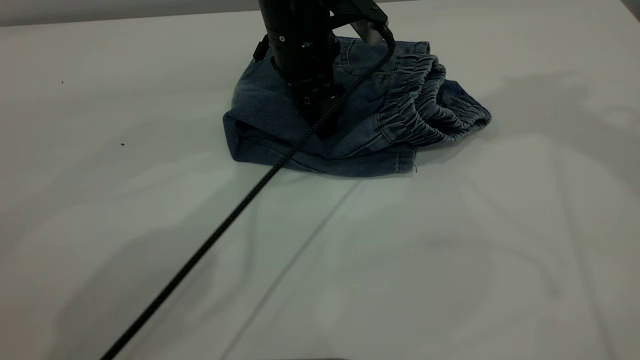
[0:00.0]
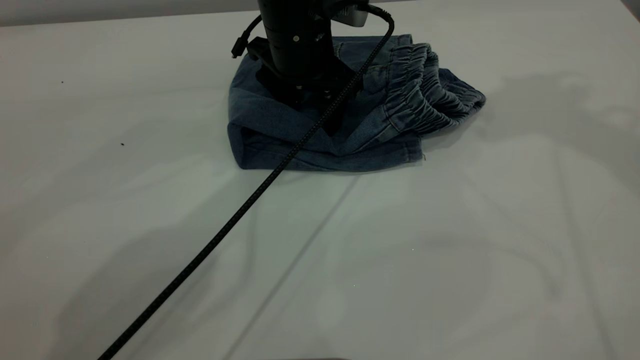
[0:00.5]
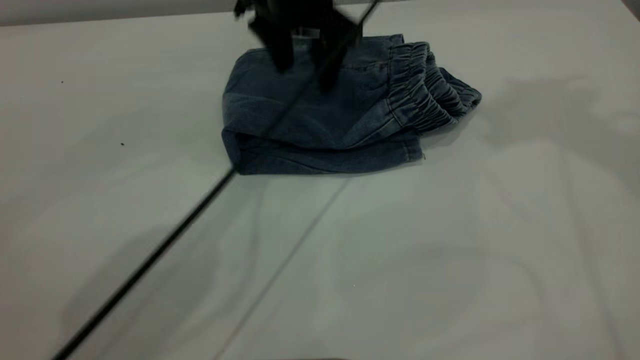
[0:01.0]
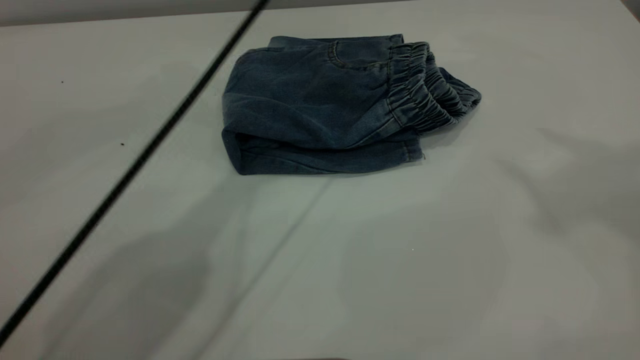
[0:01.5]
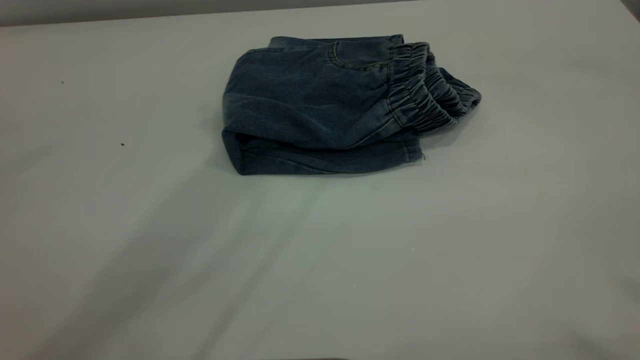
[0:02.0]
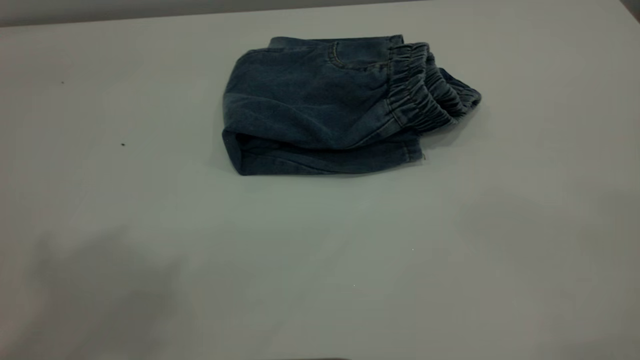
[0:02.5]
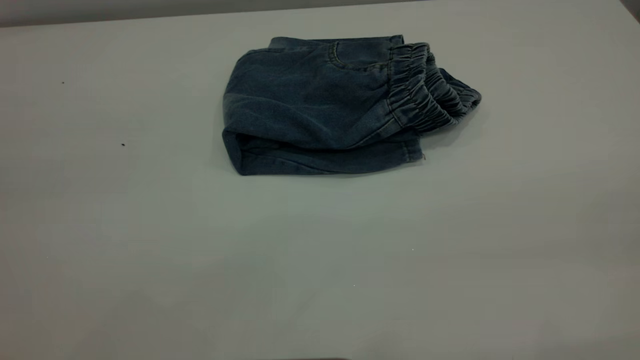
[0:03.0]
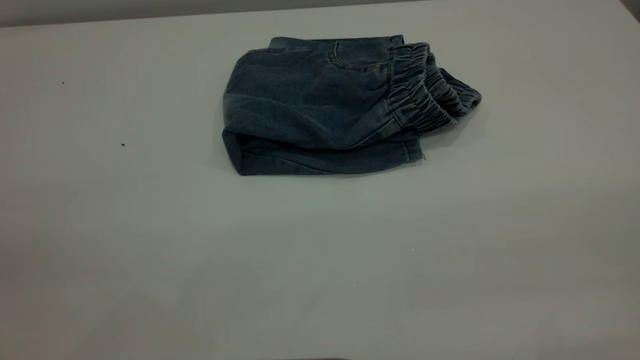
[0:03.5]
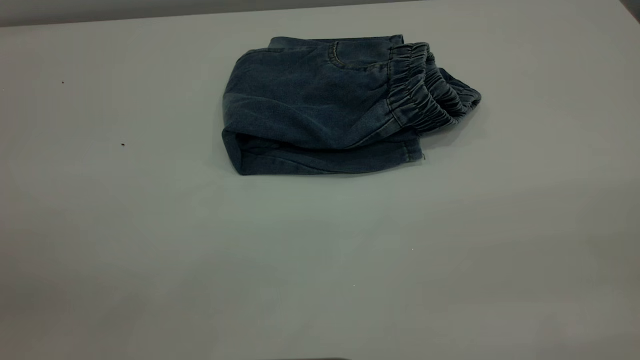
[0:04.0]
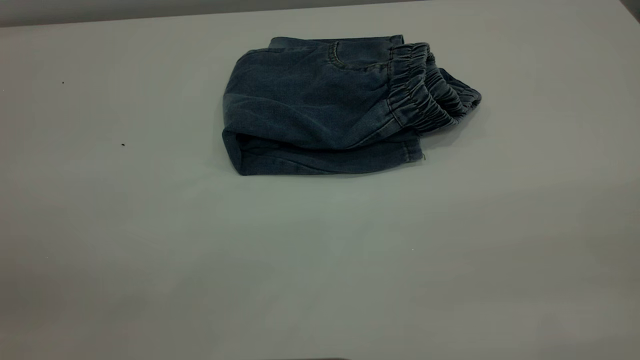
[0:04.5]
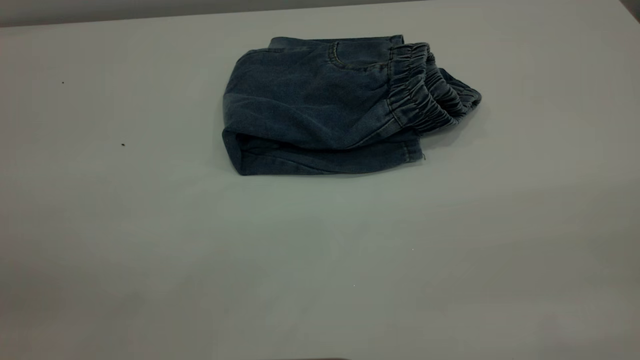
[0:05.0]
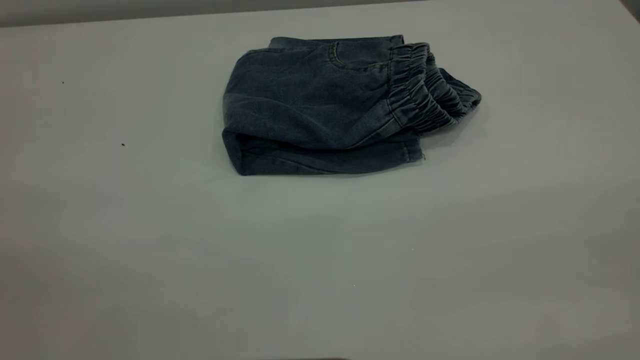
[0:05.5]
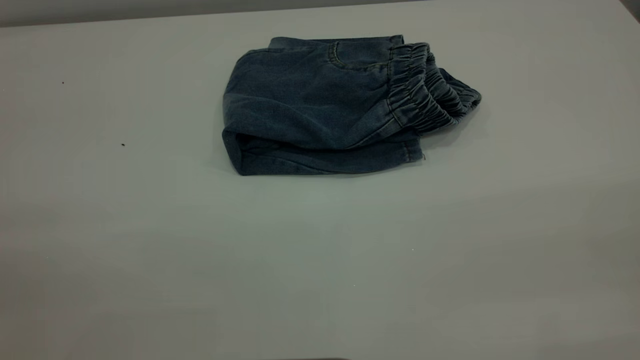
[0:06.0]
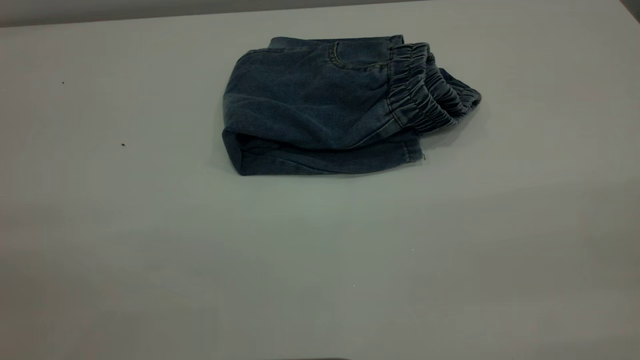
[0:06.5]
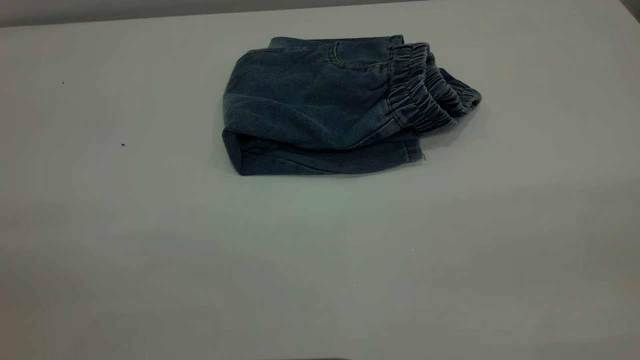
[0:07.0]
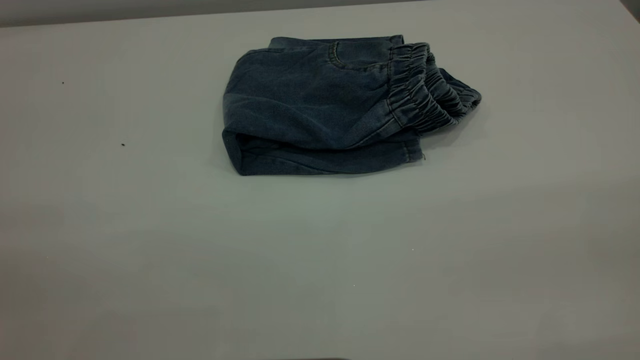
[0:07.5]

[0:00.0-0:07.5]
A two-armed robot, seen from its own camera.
0:00.0 to 0:02.0: The left gripper heads upward, covering roughly 40 cm. The right gripper heads backward and upward, covering approximately 30 cm.
